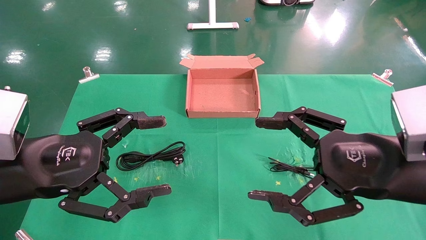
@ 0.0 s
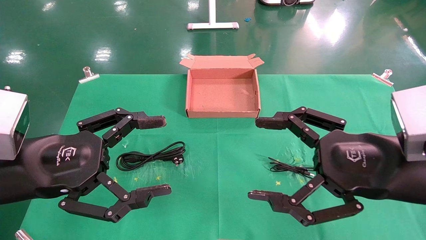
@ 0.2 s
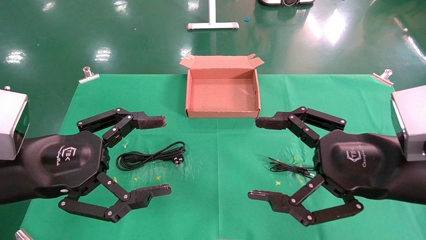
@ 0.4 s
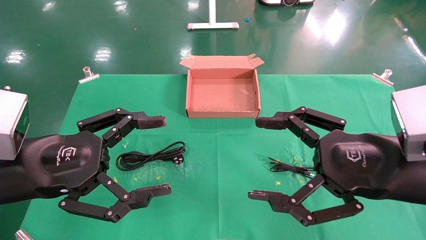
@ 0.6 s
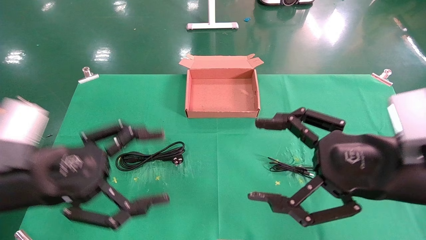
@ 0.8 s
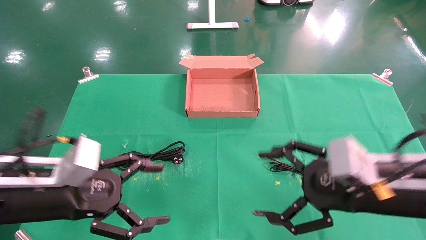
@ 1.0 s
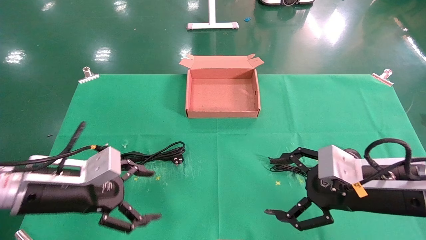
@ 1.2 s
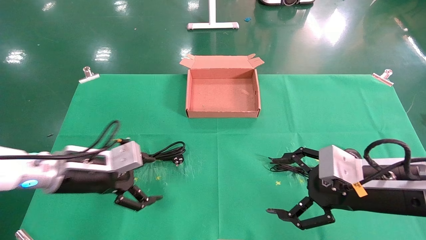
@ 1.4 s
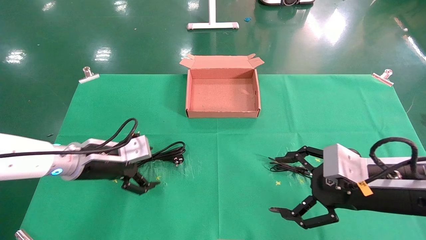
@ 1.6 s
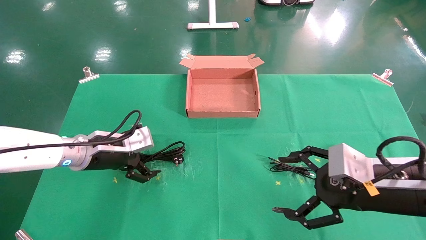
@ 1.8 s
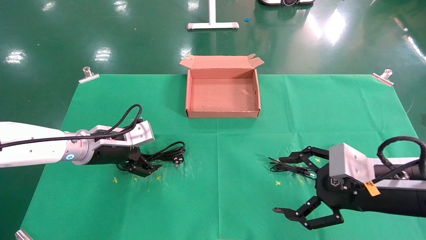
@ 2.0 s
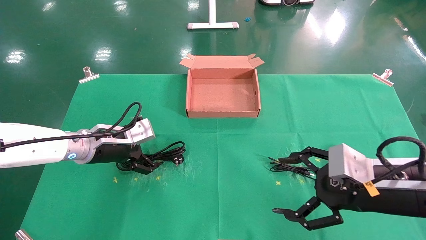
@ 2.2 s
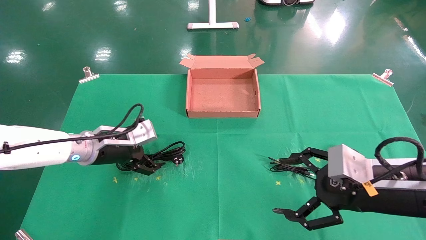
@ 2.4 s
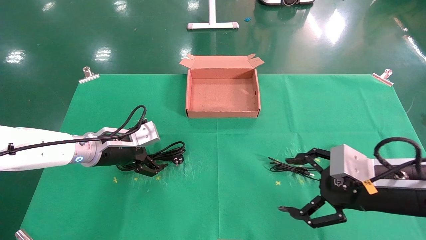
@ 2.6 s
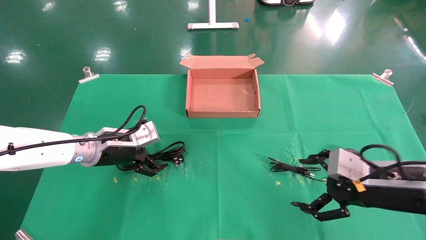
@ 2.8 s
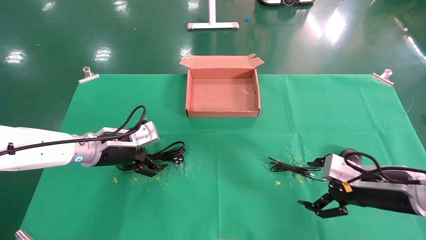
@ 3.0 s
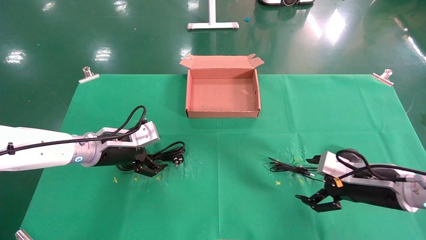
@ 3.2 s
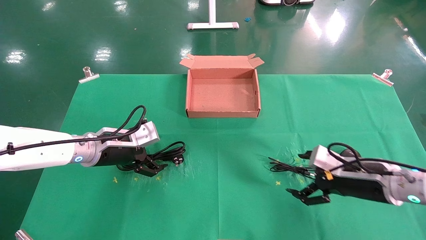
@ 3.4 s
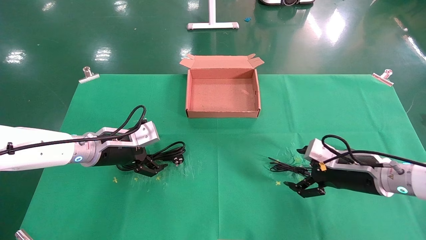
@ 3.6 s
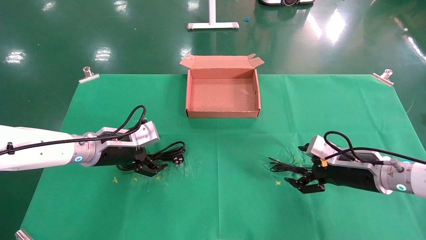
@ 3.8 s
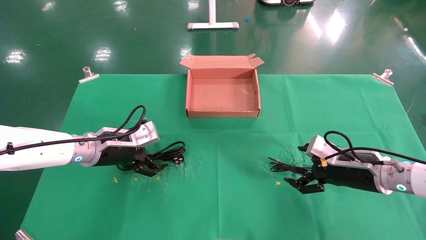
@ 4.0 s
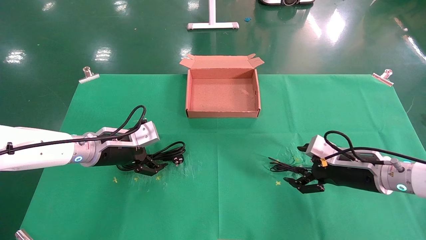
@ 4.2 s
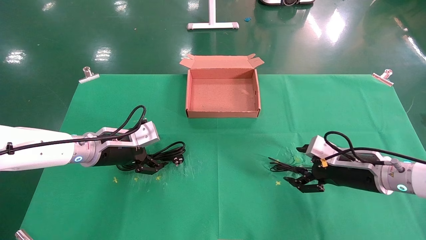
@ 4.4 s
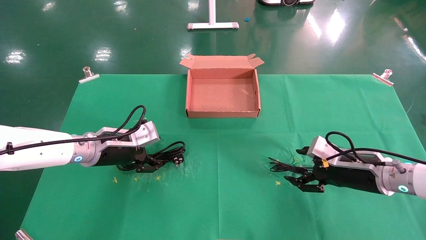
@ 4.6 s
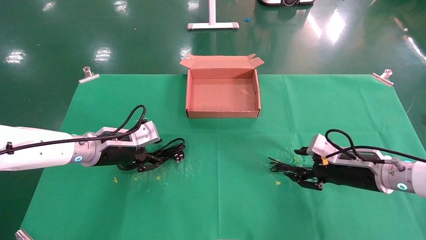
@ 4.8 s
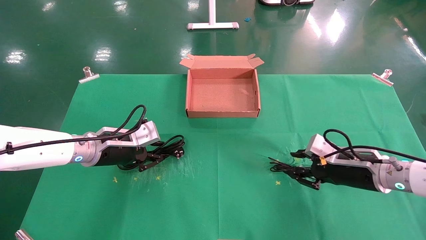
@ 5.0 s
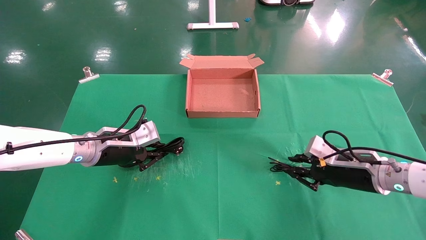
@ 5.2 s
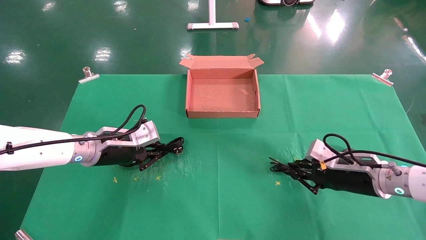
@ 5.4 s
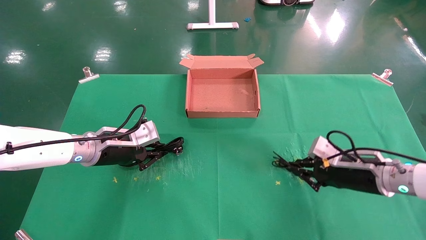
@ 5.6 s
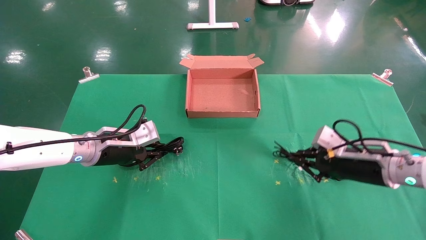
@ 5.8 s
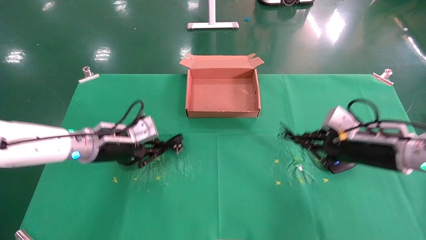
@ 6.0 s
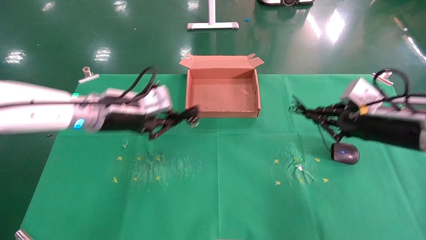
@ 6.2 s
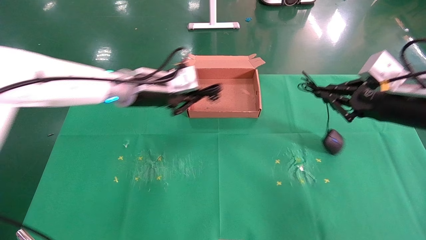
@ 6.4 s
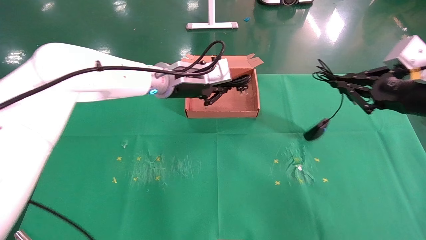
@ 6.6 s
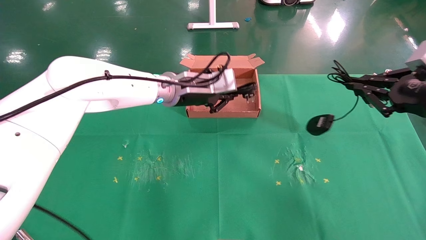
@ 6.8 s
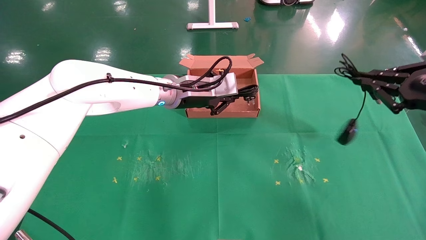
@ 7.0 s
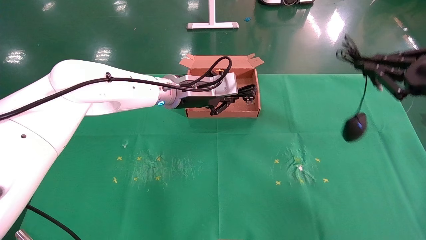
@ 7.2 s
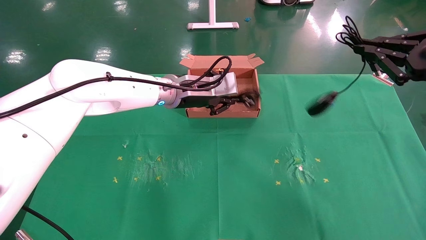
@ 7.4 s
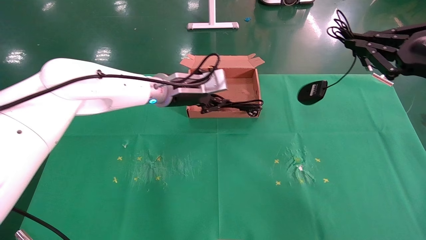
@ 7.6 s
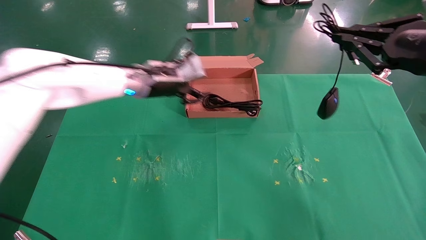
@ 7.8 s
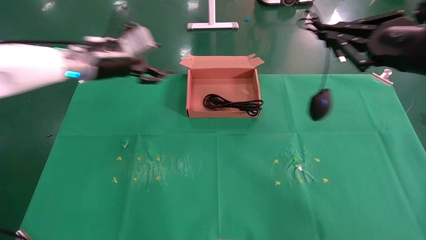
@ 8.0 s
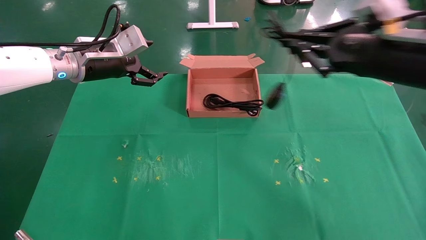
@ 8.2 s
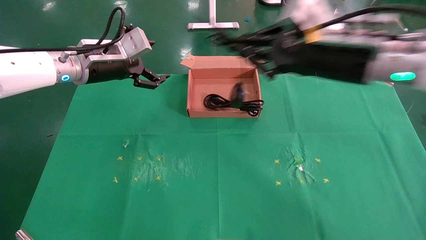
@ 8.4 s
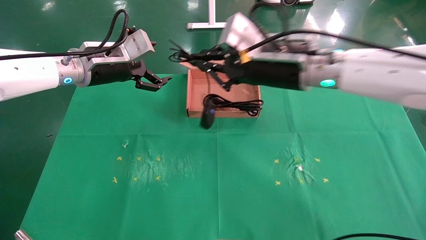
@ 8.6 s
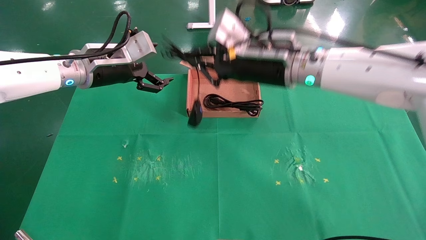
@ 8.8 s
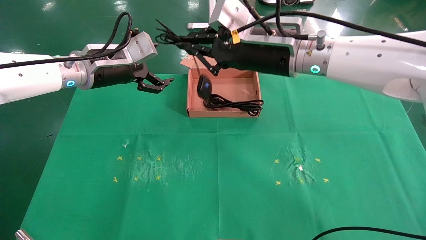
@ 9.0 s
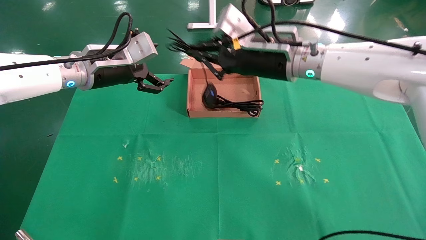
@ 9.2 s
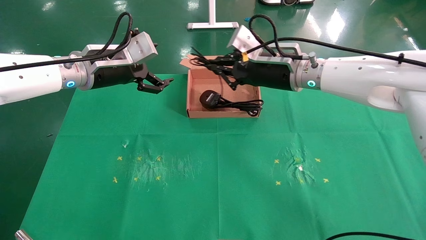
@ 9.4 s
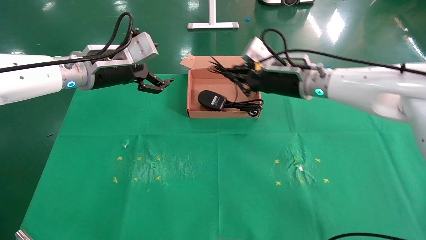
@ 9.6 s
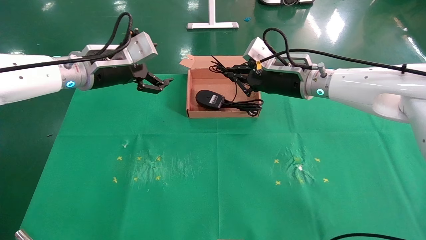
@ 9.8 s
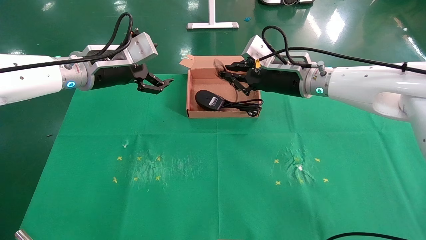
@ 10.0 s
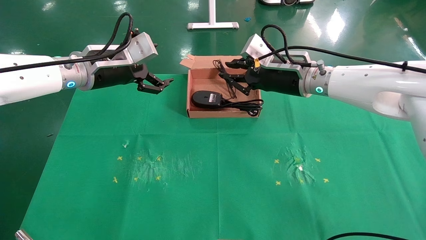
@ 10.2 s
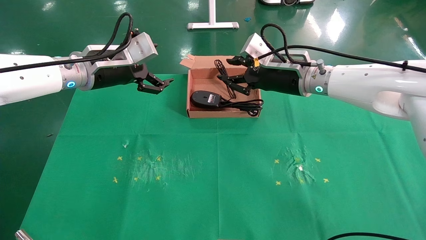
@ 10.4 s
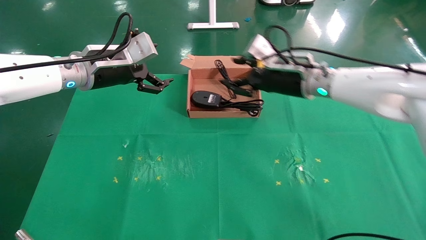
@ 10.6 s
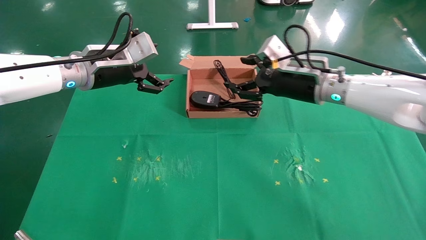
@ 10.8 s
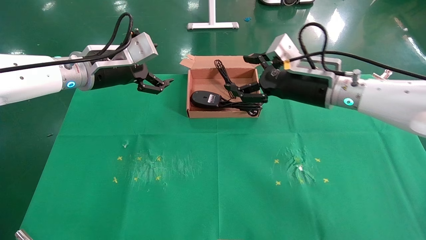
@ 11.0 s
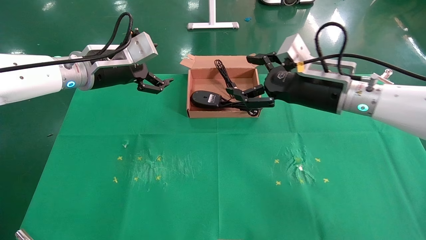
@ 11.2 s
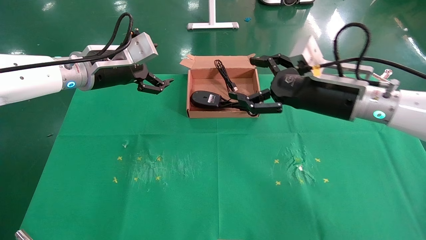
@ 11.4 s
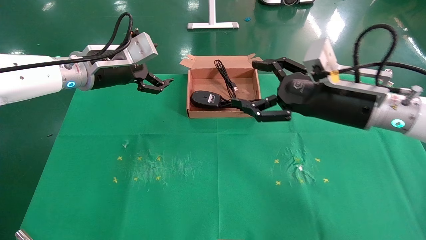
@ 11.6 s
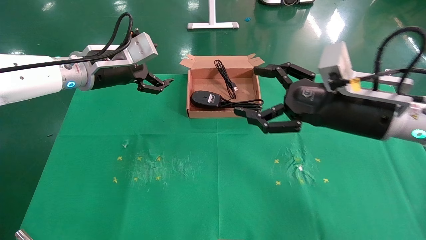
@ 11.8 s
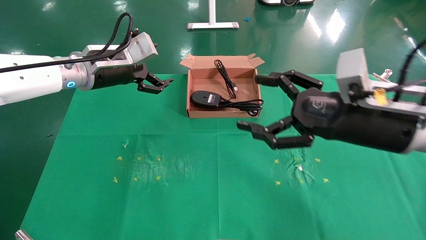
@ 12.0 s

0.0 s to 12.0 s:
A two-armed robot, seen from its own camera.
Task of the whole recording: grasp data cable left put into box grasp mouse right put into box.
Step, 1.0 to 5.6 s: Simultaneously pick up the mouse and power cord from the accessory packaging area.
Step, 5.8 to 10.0 s: Place the mouse and power cord into the box.
0.0 to 1.6 s: The left gripper goes approximately 15 cm forward and downward, while the right gripper shifts some 5 cm downward.
1.6 to 3.0 s: The right gripper is displaced downward and forward by roughly 5 cm.
3.0 to 4.4 s: The right gripper is displaced forward by about 5 cm.
4.4 to 6.0 s: The left gripper closes up, while the right gripper travels upward by about 5 cm, and closes its fingers.
6.0 to 7.6 s: The left gripper is displaced to the right, upward and forward by approximately 15 cm; the right gripper shifts roughly 15 cm upward and backward.
7.6 to 9.0 s: The right gripper travels to the left and forward by some 25 cm. Meanwhile the left gripper heads to the left, covering approximately 10 cm, and opens its fingers.
9.0 to 10.4 s: The right gripper heads forward, covering approximately 5 cm.
10.4 to 12.0 s: The right gripper is displaced backward and to the right by about 20 cm, and opens its fingers.

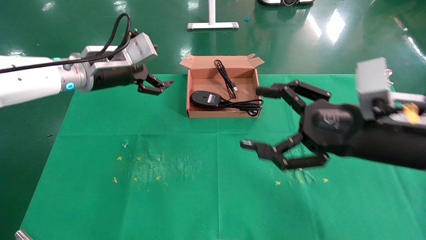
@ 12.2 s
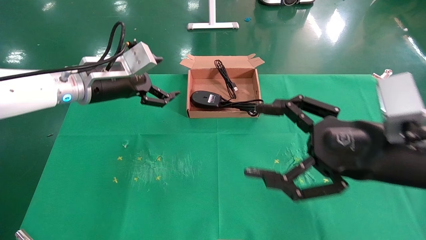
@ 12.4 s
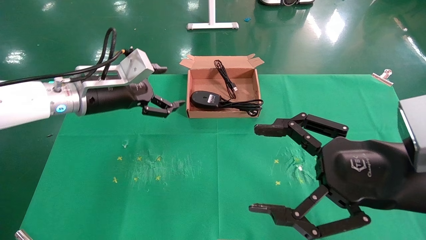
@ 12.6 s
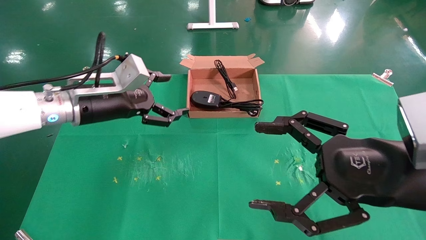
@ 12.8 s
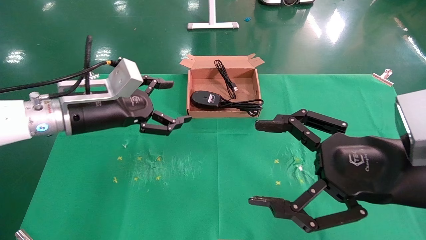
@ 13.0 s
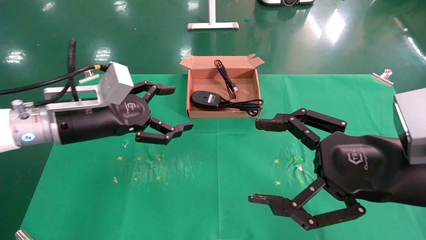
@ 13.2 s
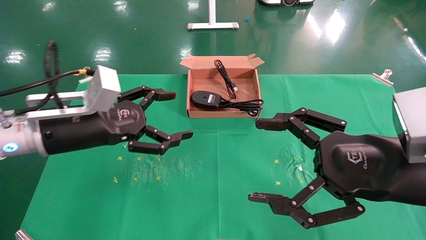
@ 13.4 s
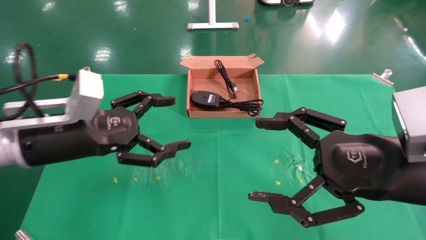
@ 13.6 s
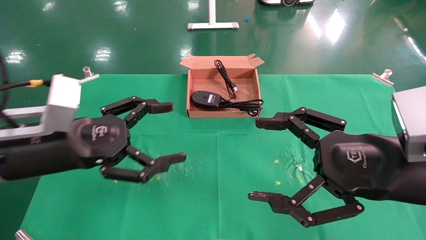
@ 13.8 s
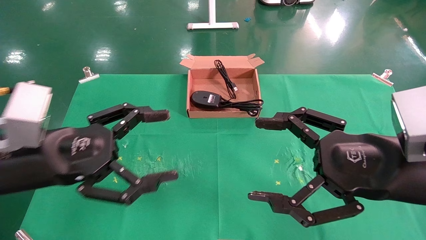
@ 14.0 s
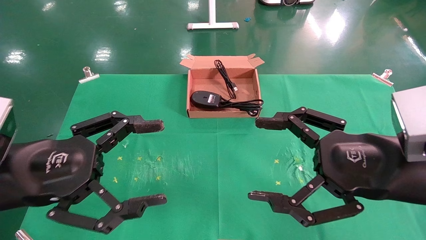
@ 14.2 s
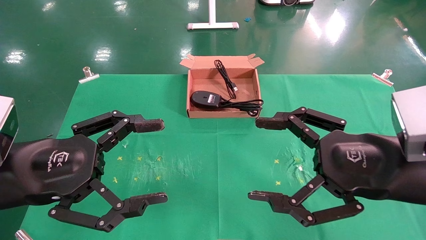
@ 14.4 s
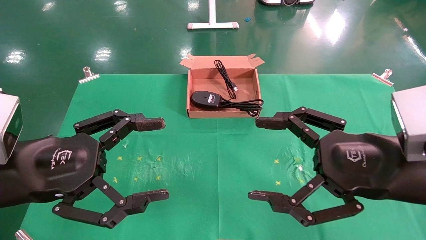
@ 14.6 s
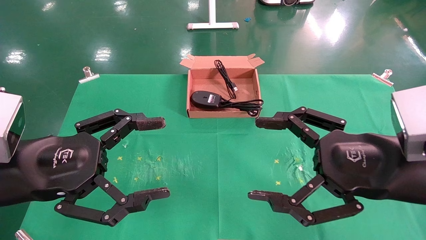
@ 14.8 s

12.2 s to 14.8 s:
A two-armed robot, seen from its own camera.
Task of the whole recording: grasp data cable left put into box grasp mouse right put into box.
12.2 to 13.4 s: The left gripper goes roughly 15 cm backward and downward.
13.4 to 14.8 s: The left gripper moves backward, about 10 cm.
